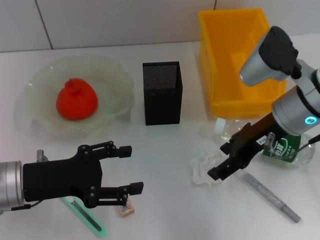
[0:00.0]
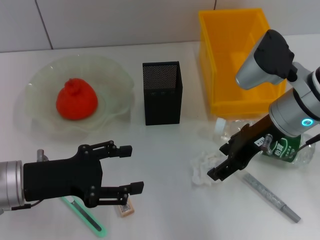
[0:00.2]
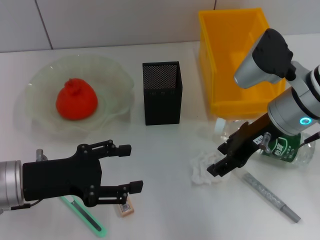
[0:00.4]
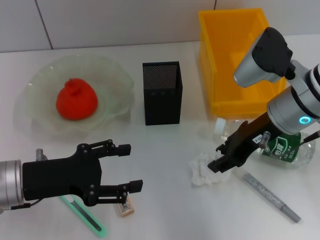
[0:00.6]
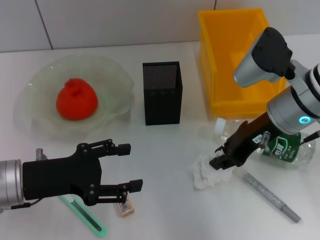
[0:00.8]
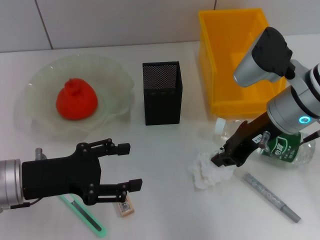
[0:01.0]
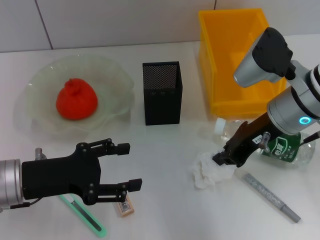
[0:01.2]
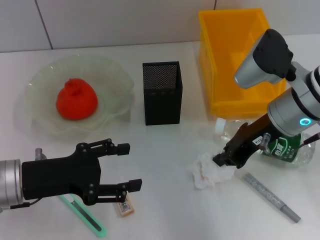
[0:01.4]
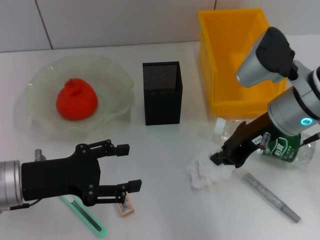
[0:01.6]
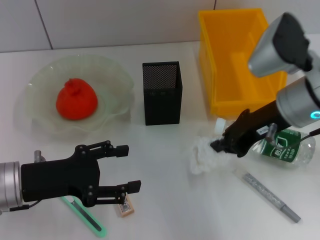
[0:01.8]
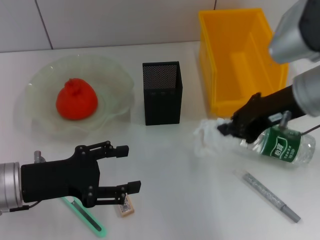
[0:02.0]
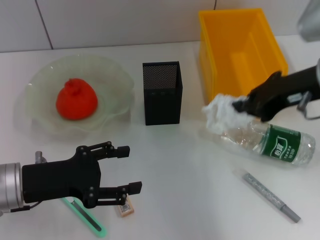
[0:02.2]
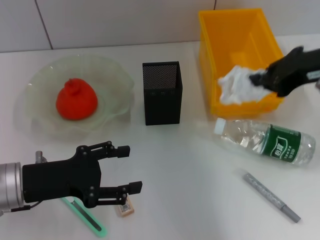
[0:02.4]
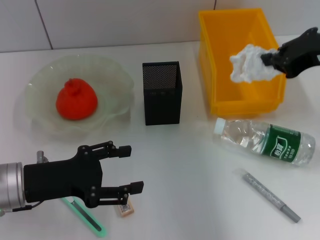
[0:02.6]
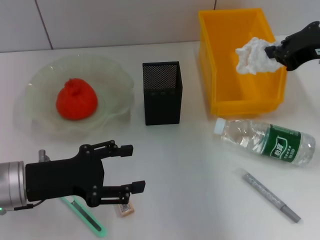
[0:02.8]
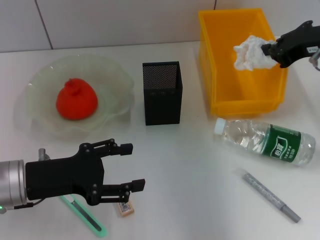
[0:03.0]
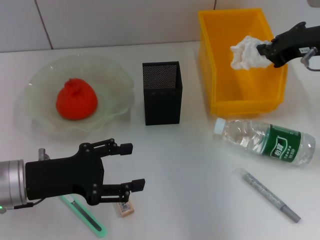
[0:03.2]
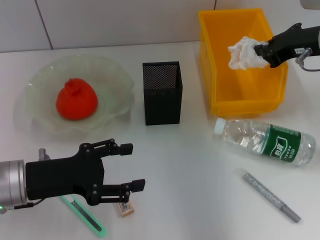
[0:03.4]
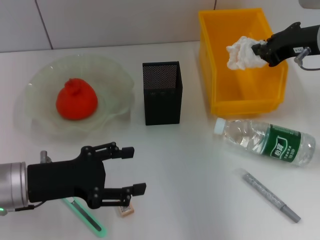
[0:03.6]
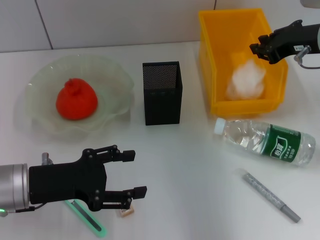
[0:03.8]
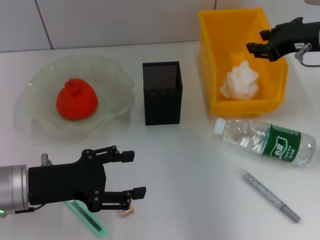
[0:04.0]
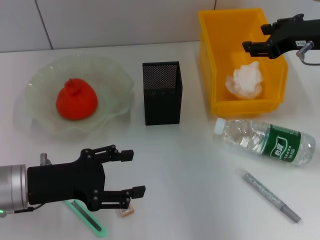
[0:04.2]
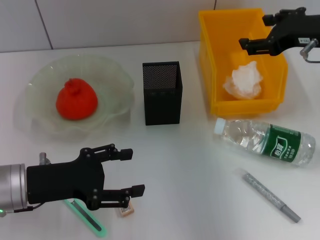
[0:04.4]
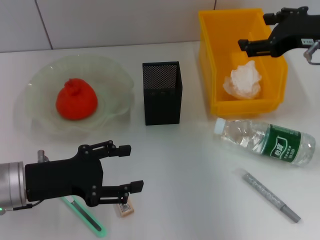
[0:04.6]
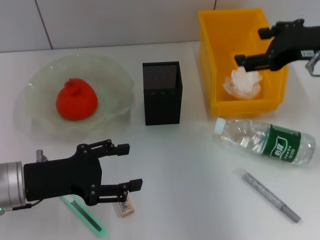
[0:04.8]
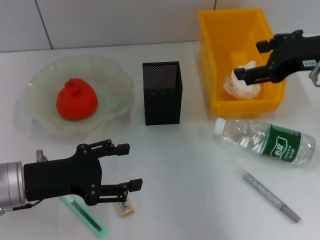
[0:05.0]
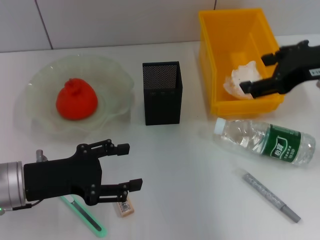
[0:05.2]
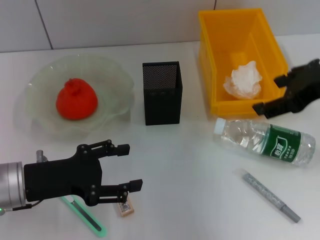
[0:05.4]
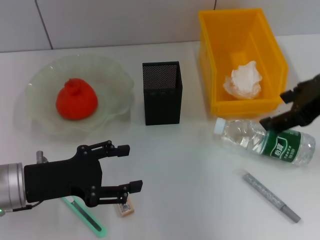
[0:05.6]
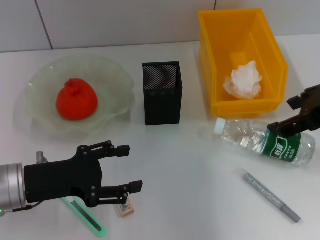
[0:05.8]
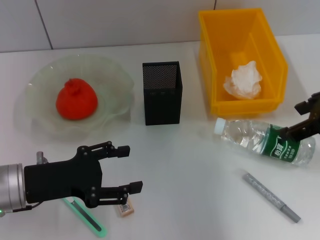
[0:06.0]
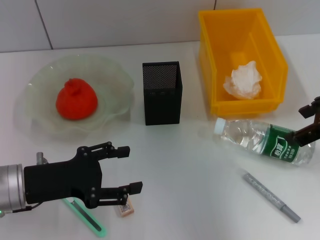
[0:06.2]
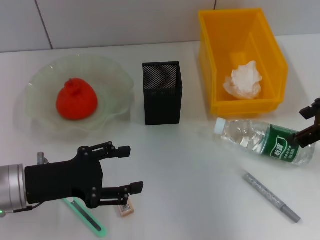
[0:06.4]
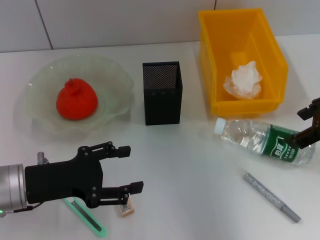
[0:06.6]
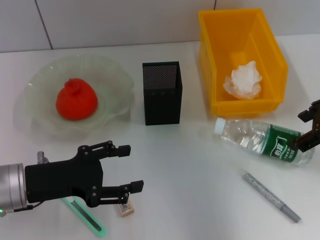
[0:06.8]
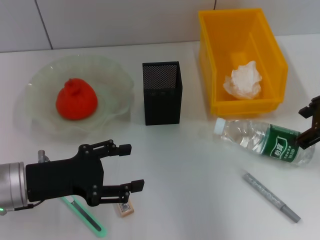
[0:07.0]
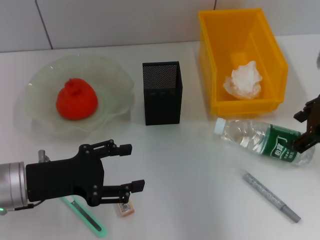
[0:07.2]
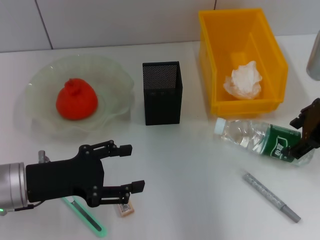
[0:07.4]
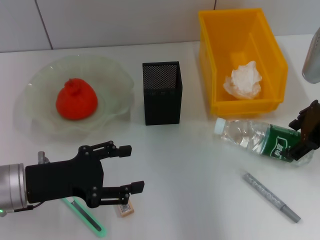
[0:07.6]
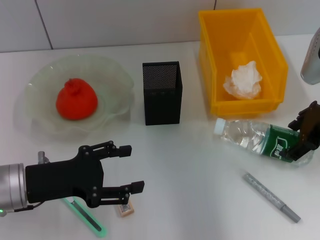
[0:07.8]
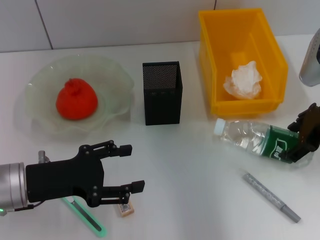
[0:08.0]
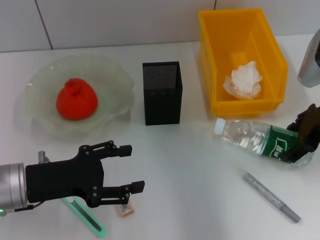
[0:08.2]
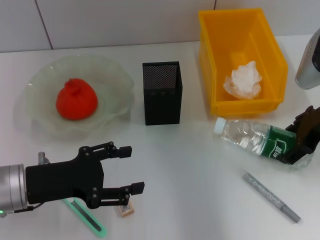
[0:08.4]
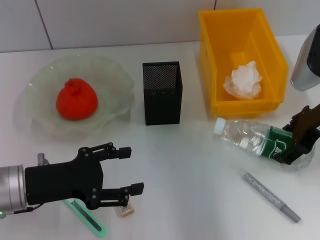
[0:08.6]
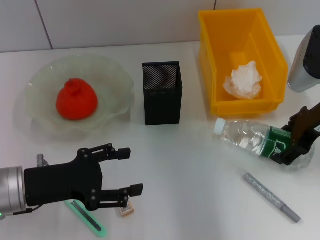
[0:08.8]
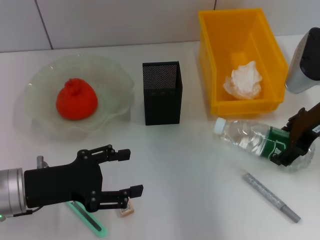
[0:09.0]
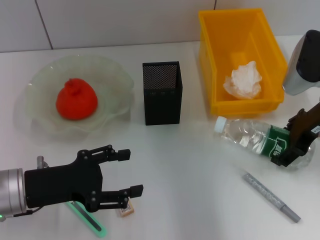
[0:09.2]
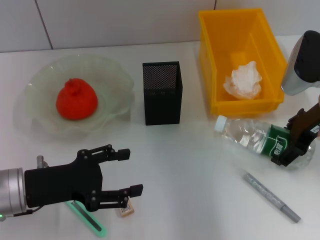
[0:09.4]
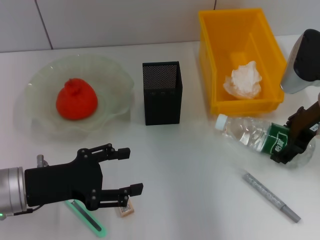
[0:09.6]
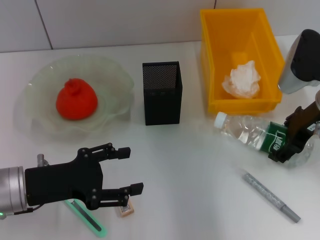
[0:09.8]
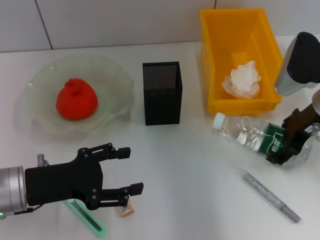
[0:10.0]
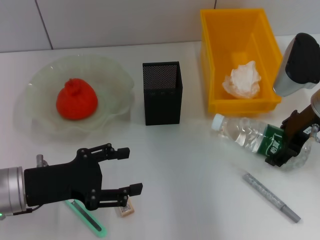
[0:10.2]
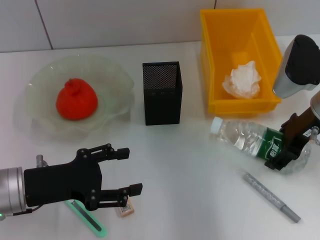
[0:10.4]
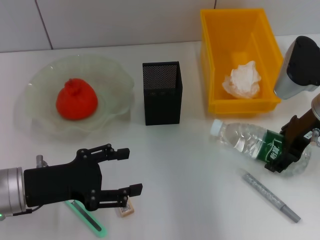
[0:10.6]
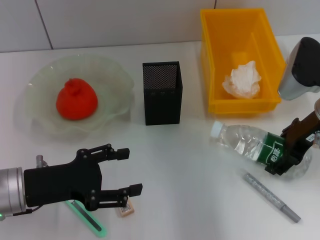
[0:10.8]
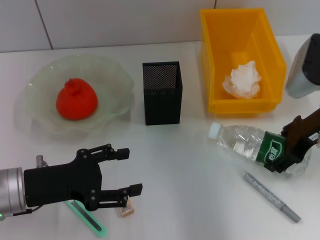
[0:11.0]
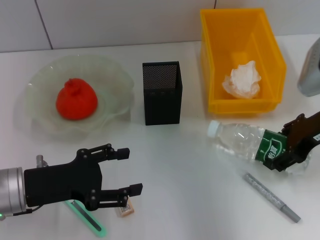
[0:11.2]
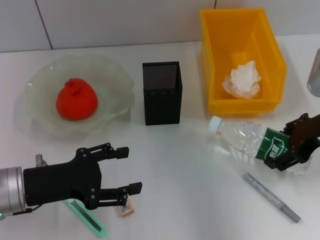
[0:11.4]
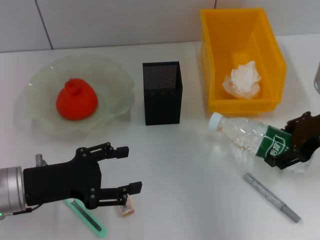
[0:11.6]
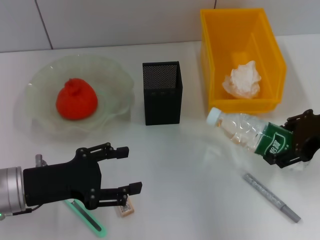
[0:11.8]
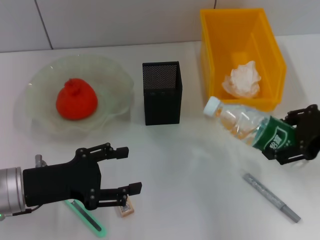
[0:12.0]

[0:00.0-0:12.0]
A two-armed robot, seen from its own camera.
Step, 0:00.8 to 0:04.4: Place the paper ball into the trash can with the right hand.
Step, 0:04.8 to 0:10.8: Grab the water bottle with the right hand.
0:00.0 to 0:01.6: The right gripper closes.
0:01.6 to 0:03.0: The right gripper goes roughly 10 cm to the right and upward.
0:03.0 to 0:04.4: The right gripper opens its fingers.
0:04.4 to 0:06.0: The right gripper shifts about 5 cm backward.
0:06.0 to 0:07.6: The right gripper moves downward, some 5 cm.
0:07.6 to 0:10.4: The grippers stay close to where they were, moving slightly.
0:10.4 to 0:12.0: The right gripper travels backward by about 5 cm.

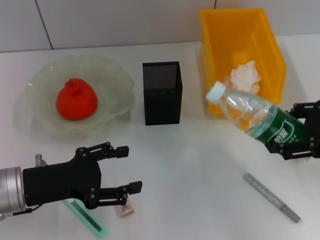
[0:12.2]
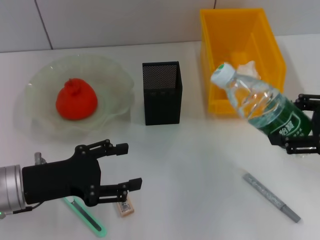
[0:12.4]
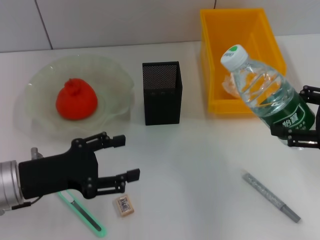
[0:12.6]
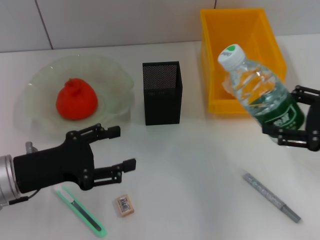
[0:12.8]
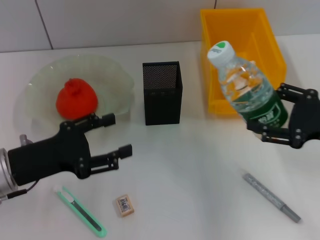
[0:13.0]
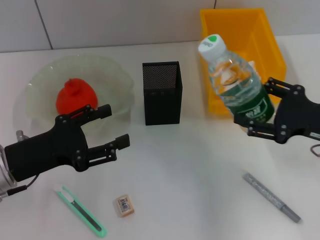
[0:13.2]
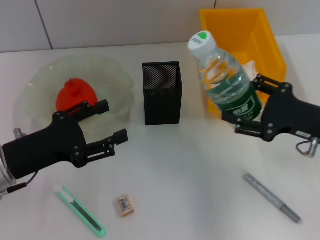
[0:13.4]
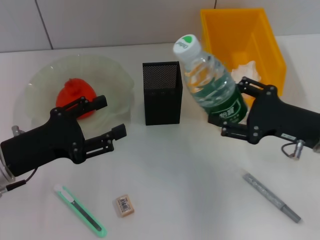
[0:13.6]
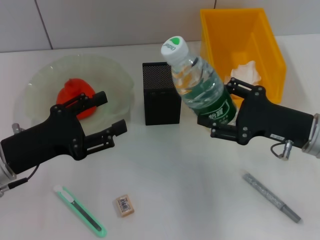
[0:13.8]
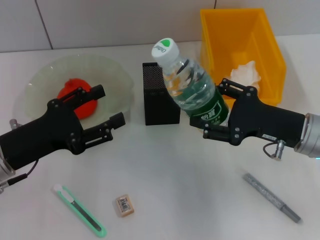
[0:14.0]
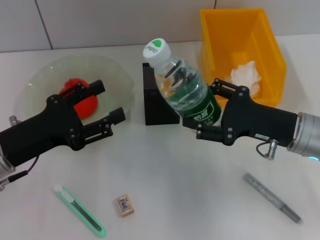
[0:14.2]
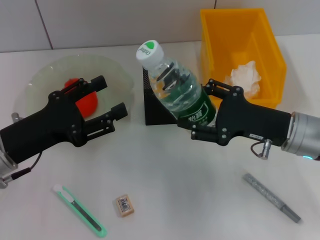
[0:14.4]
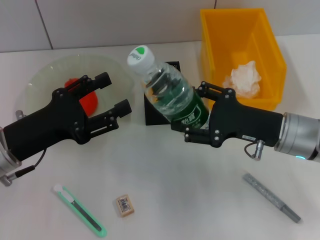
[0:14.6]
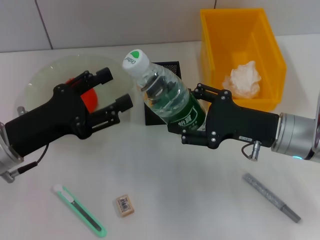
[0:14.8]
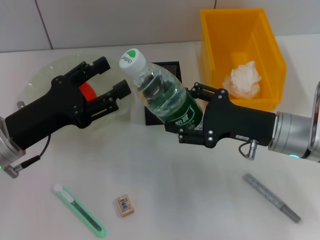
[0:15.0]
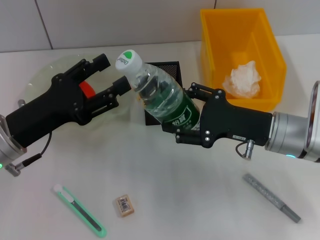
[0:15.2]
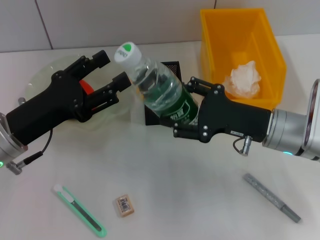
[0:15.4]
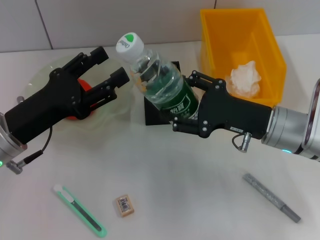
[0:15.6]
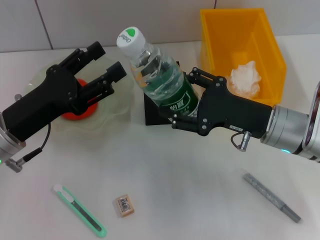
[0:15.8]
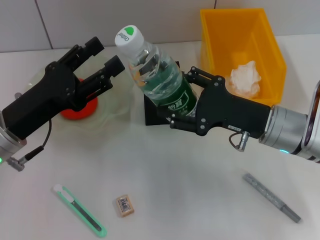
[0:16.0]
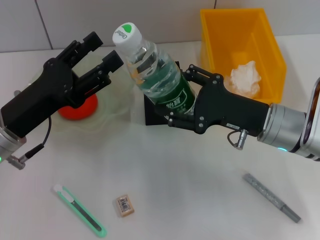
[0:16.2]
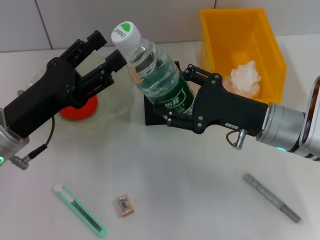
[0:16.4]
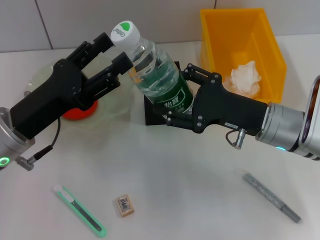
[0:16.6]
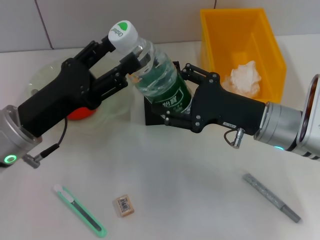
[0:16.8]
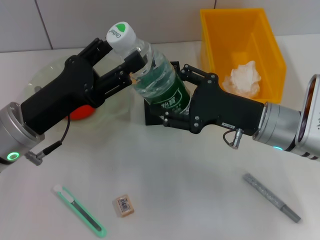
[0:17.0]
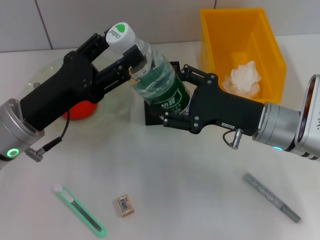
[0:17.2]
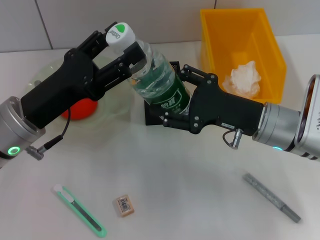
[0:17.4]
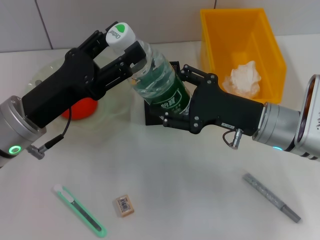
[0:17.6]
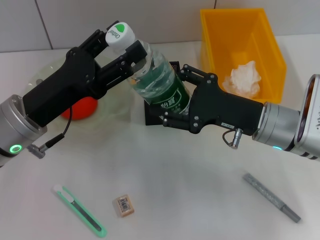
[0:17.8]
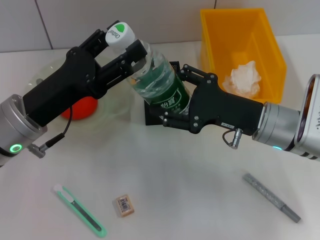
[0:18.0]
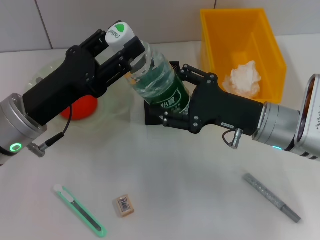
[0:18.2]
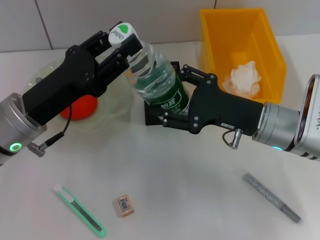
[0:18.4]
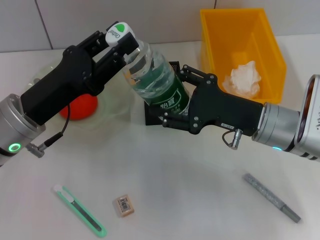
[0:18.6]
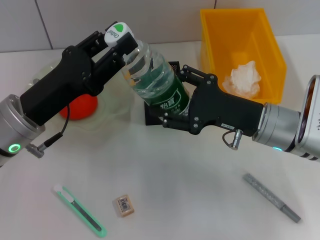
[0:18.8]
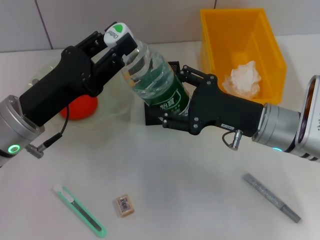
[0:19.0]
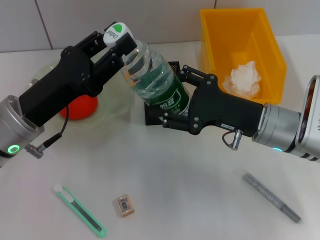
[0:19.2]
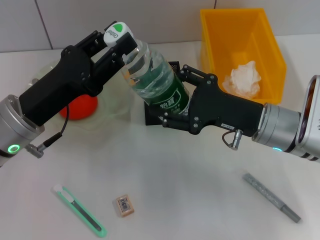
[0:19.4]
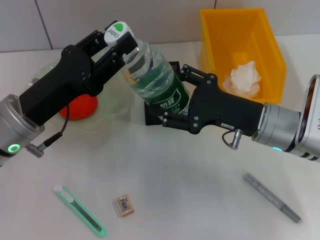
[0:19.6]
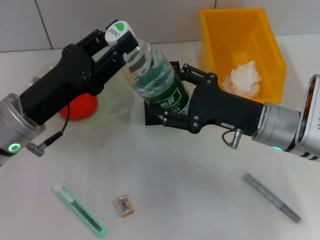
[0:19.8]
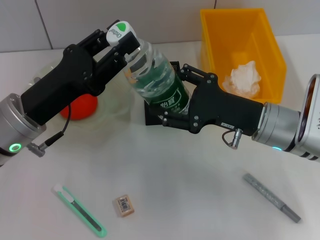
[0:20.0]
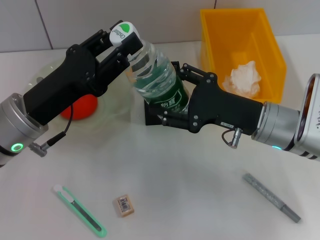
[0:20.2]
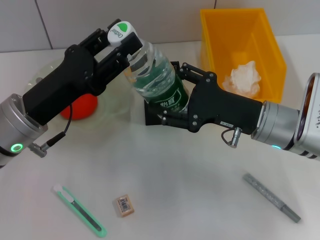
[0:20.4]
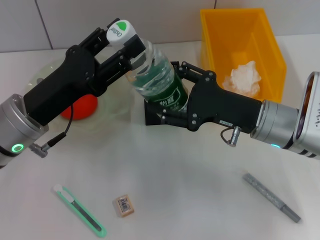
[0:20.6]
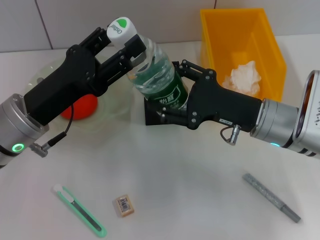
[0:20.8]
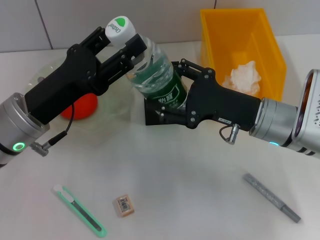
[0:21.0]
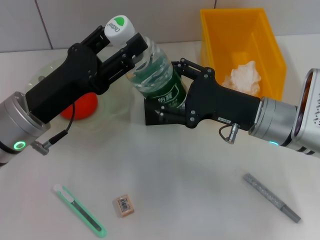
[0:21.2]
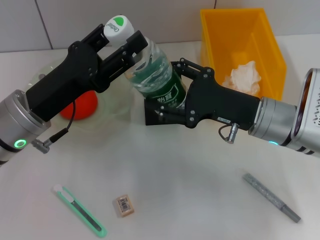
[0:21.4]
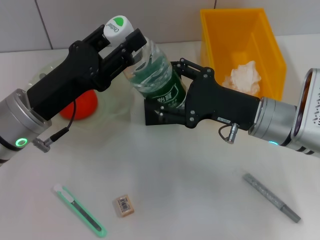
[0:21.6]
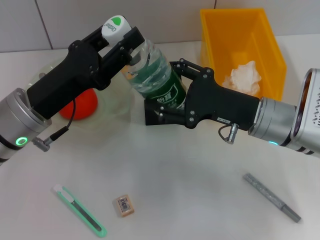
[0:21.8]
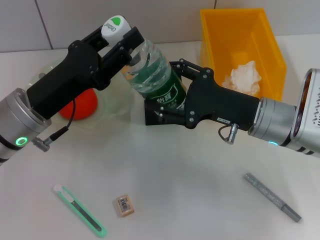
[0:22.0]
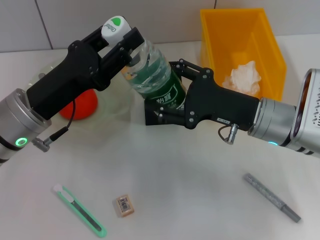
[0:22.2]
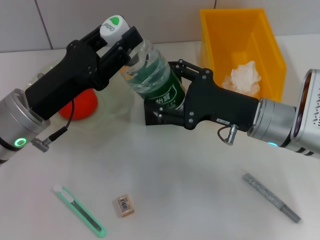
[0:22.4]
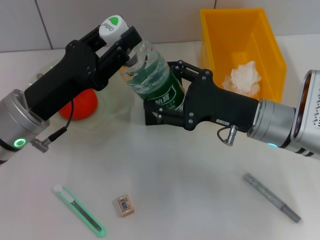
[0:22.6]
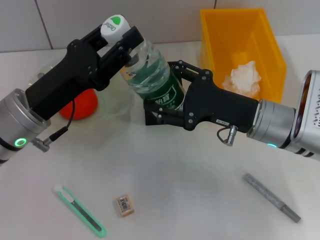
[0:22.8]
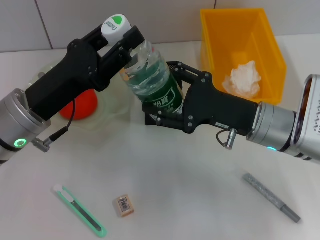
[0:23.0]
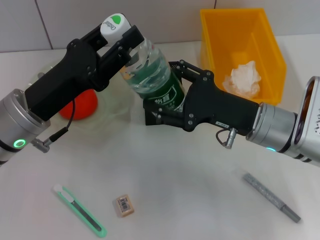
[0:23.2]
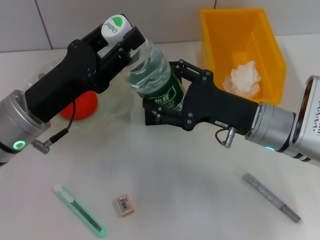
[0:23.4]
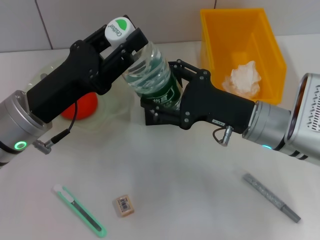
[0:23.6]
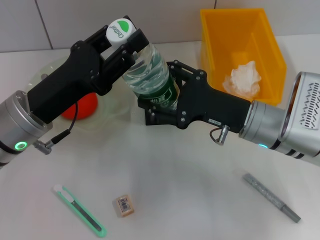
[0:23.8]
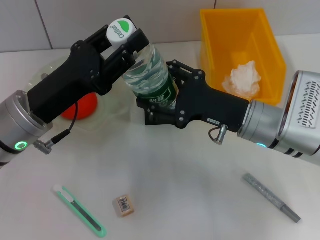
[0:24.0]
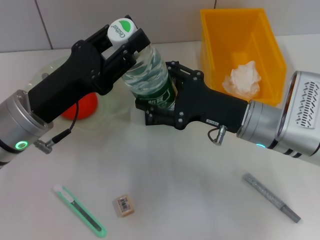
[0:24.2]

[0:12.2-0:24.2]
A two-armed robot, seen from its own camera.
0:12.2 to 0:13.8: The right gripper heads downward and to the left, covering some 10 cm.
0:13.8 to 0:15.2: The right gripper shifts by roughly 5 cm.
0:15.2 to 0:18.2: There are only small adjustments of the grippers.
0:18.2 to 0:19.8: The left gripper closes up.
0:19.8 to 0:21.2: The left gripper opens.
0:21.2 to 0:22.6: The left gripper closes up.
0:22.6 to 0:24.2: The two grippers keep their place.
